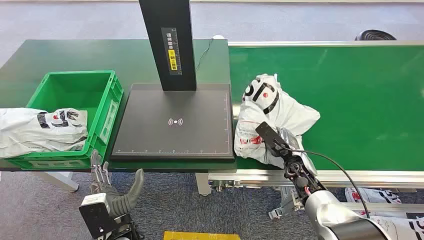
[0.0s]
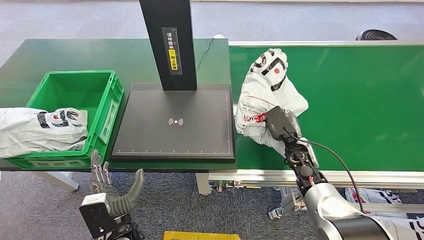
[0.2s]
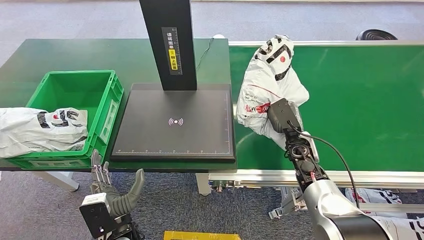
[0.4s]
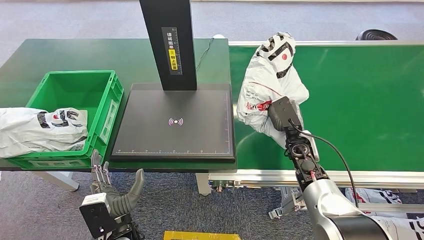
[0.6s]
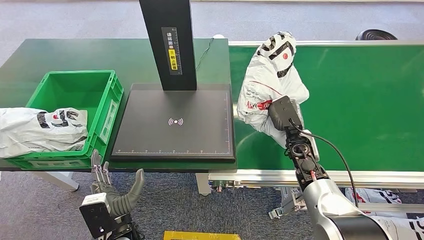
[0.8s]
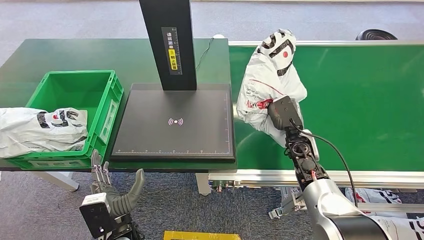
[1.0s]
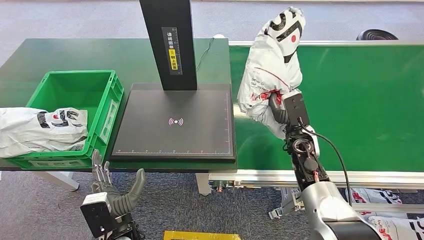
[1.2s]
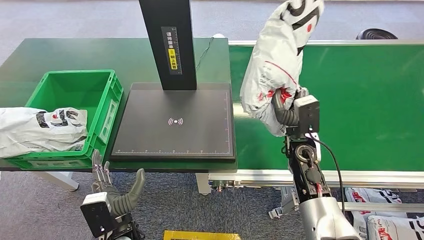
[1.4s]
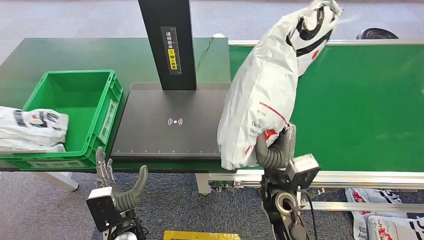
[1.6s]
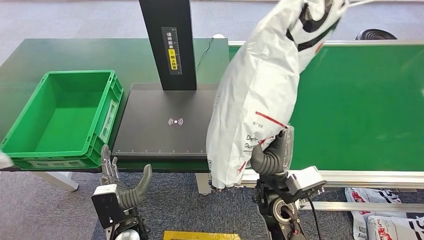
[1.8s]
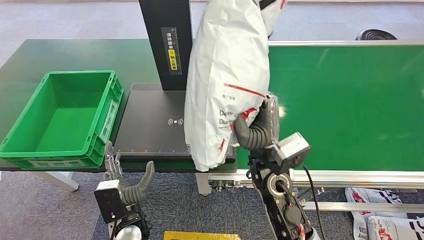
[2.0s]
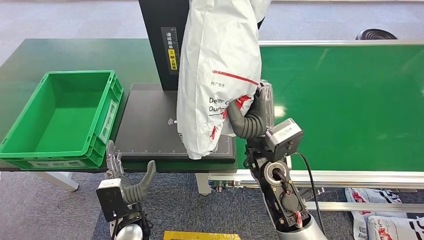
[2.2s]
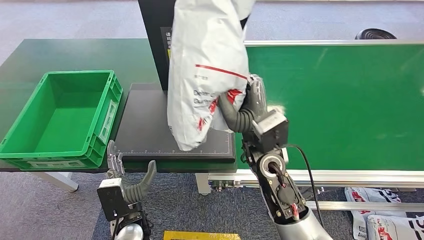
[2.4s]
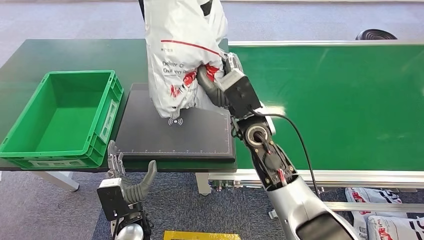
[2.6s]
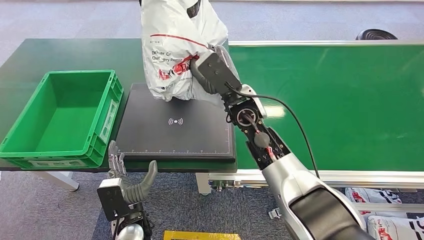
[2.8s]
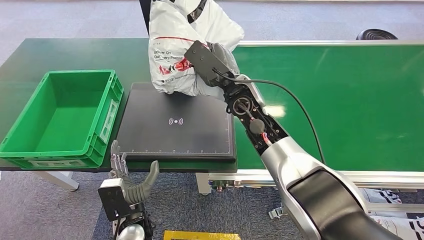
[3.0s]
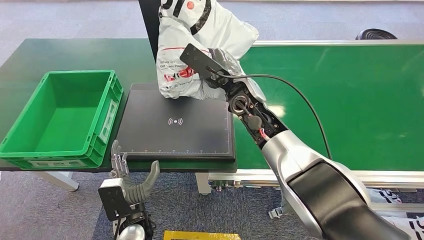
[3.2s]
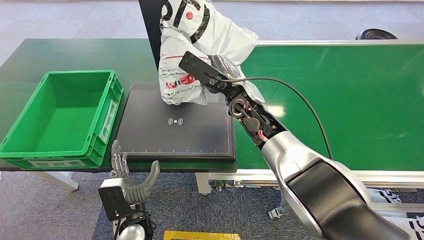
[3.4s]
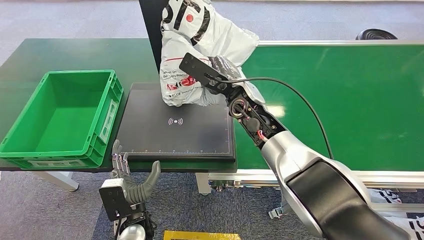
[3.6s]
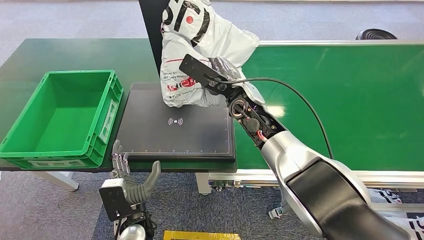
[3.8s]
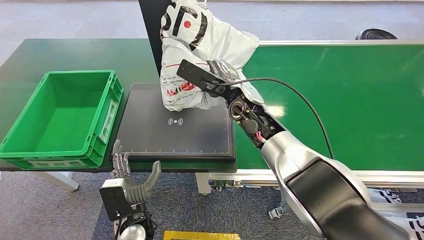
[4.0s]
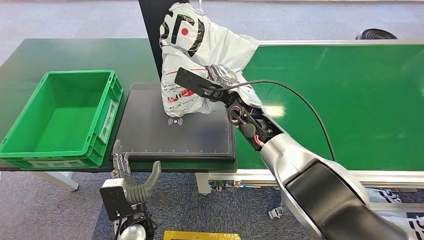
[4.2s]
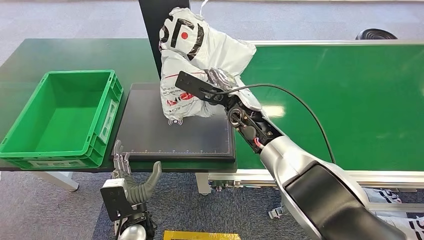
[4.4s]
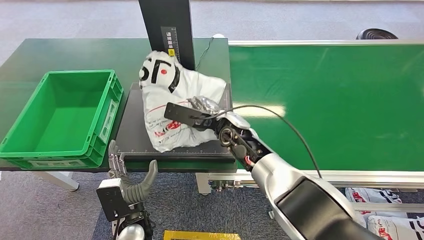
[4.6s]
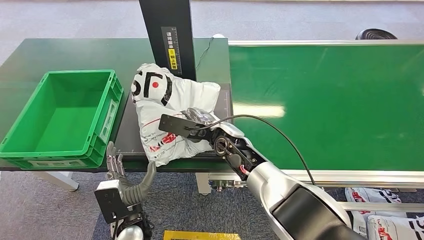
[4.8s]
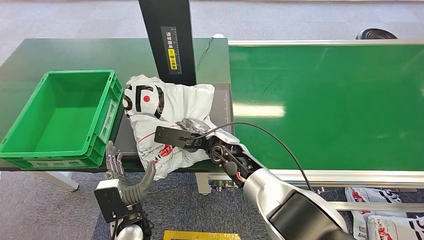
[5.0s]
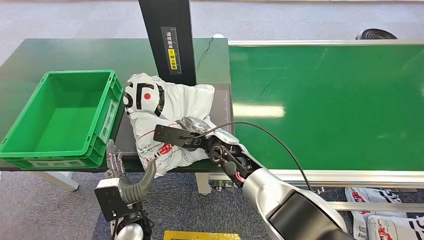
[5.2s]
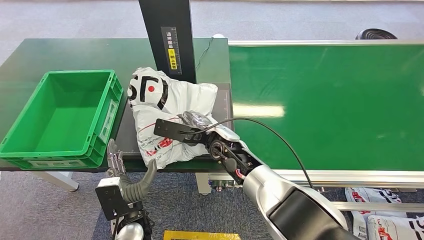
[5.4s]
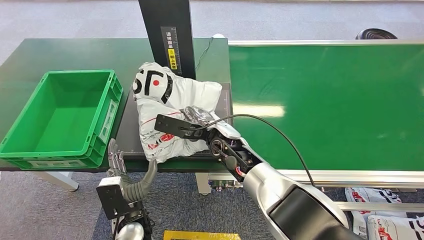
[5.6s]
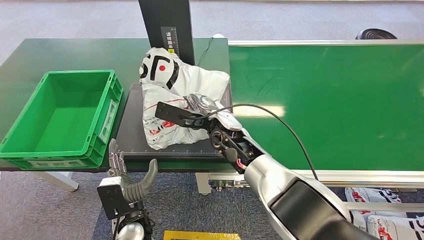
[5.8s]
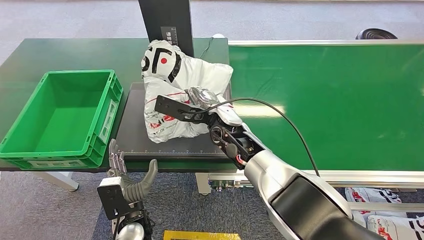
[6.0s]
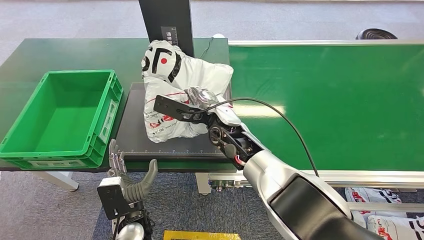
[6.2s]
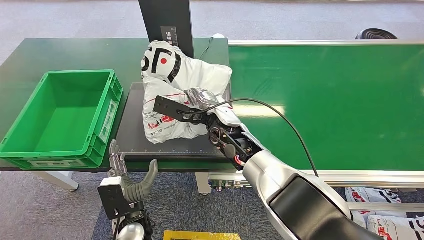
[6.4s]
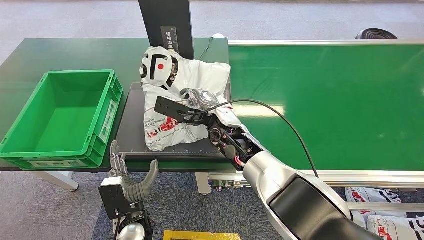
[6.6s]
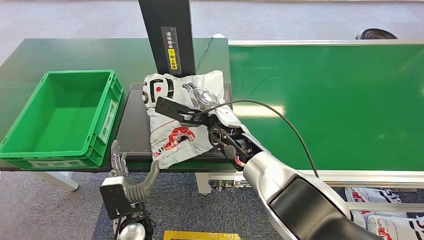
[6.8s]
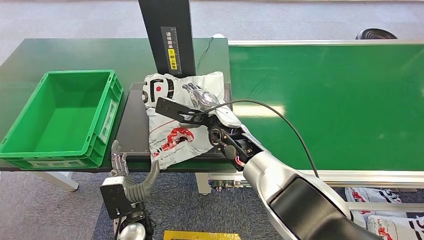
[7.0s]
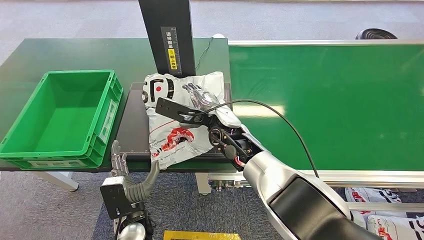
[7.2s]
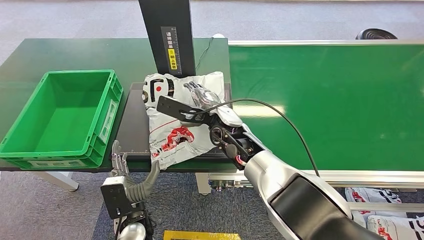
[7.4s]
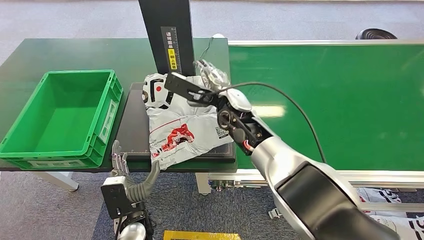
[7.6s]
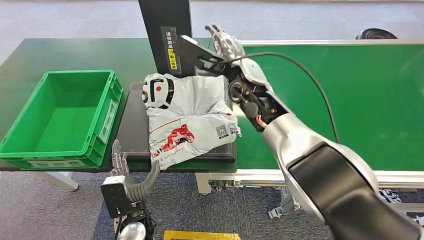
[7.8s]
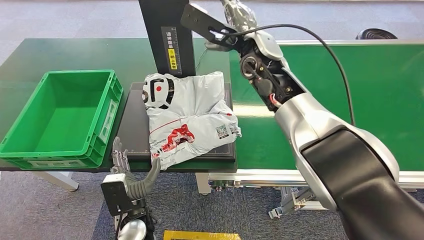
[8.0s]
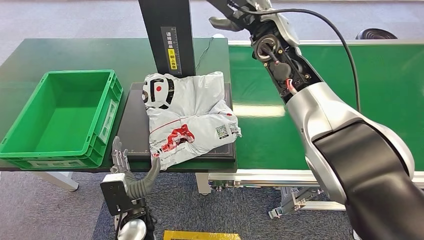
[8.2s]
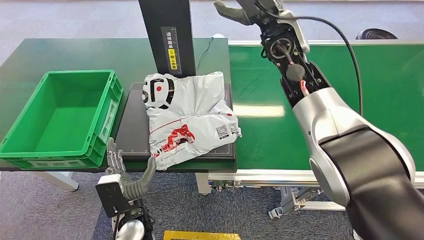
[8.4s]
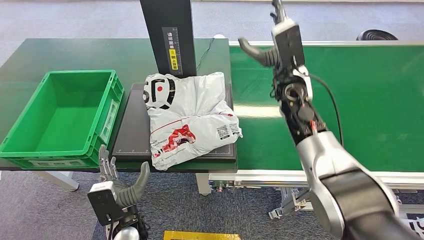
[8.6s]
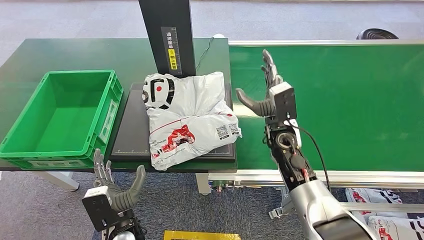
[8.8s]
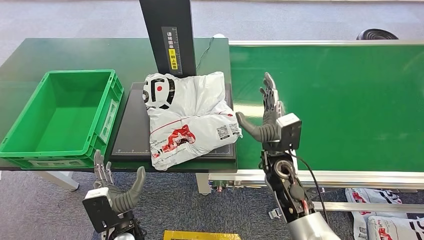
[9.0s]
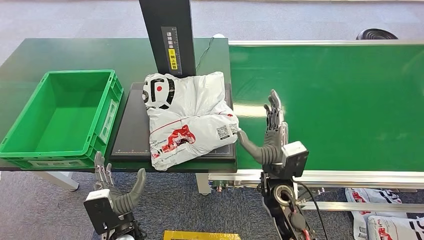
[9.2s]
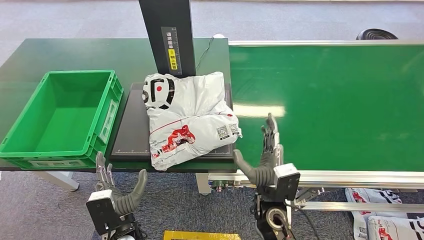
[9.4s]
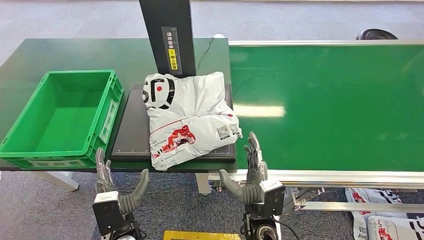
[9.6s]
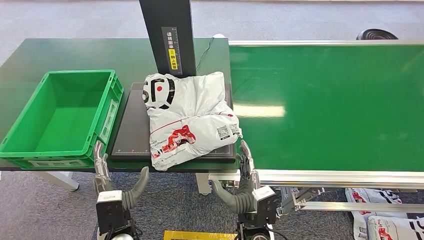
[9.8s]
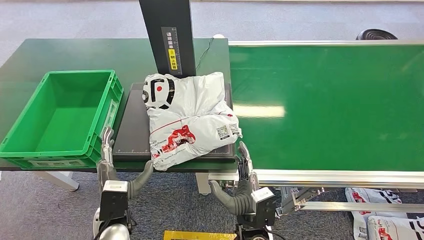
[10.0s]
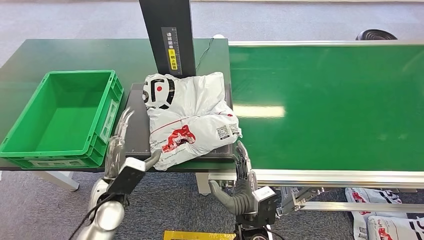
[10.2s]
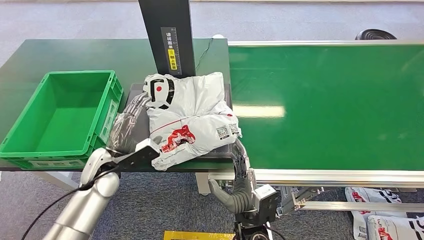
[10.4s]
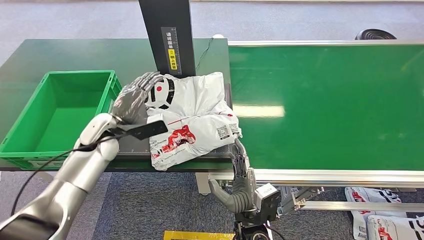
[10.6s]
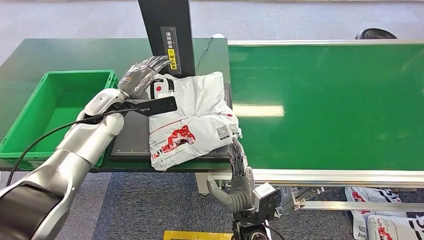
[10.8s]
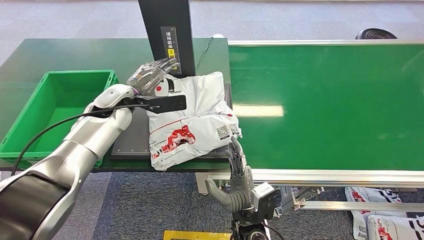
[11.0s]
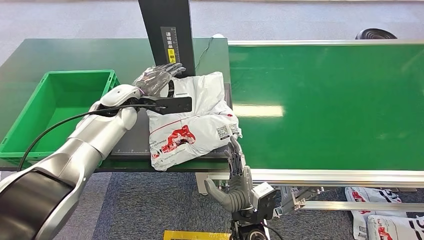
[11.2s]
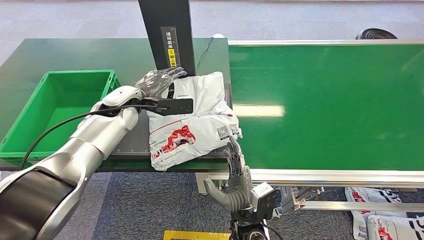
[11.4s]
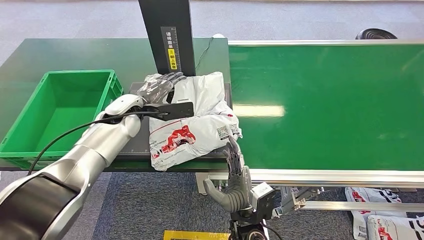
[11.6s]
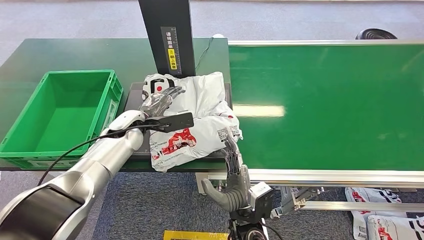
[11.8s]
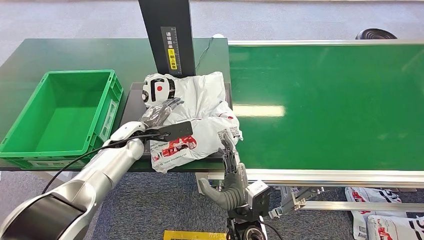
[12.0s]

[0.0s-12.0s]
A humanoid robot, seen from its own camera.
Step, 0.0s to 1.2s: Pick up the package from the conveyor belt.
Step, 1.4s to 8.6s: Place the package onto the inbound machine.
6.0s to 7.6s: The hands move only a little.
7.6s to 9.0s: The right hand shifts about 20 cm downward, to the right and backward.
9.0s to 10.4s: The left hand is displaced forward, to the left and upward by approximately 20 cm. The right hand goes about 20 cm backward, to the left and downward.
10.4s to 12.0s: The left hand goes approximately 10 cm forward, and goes upward and returns, roughly 15 cm each way.

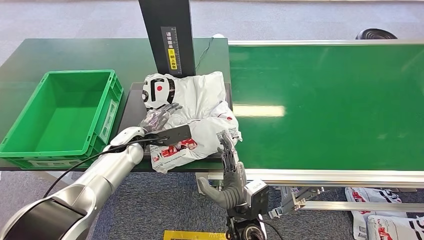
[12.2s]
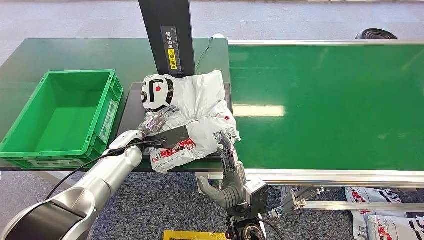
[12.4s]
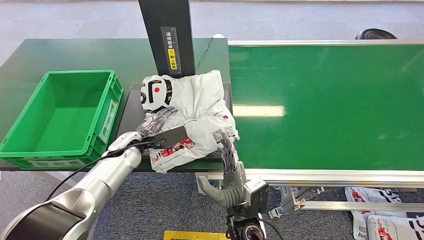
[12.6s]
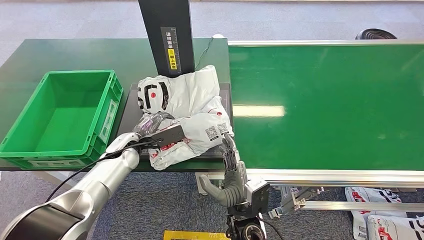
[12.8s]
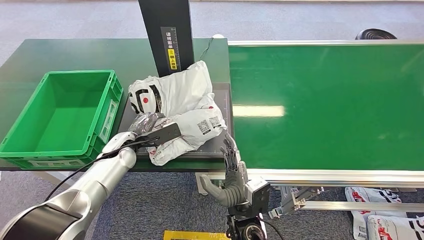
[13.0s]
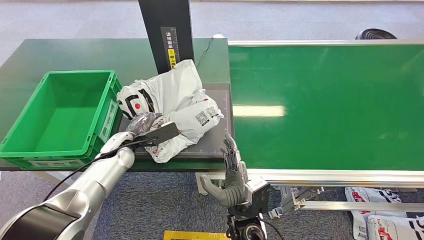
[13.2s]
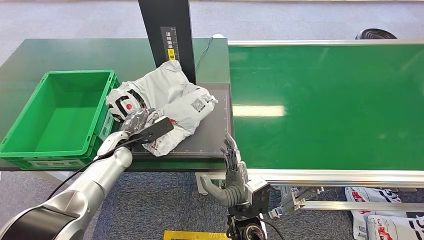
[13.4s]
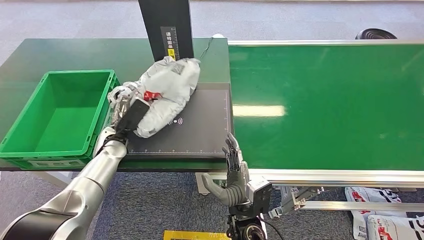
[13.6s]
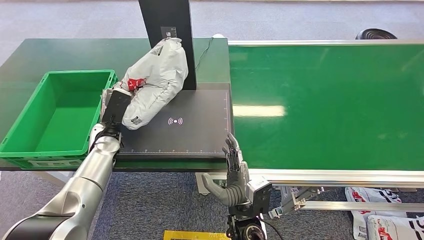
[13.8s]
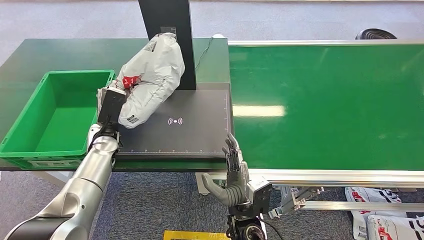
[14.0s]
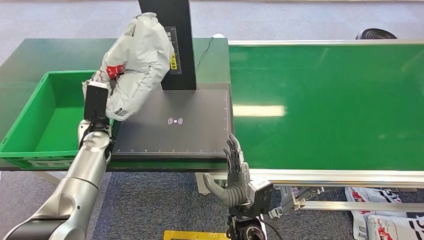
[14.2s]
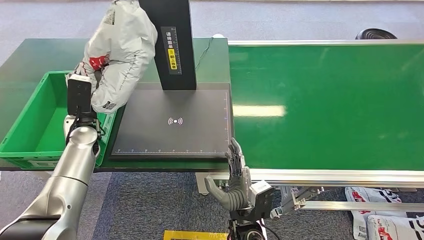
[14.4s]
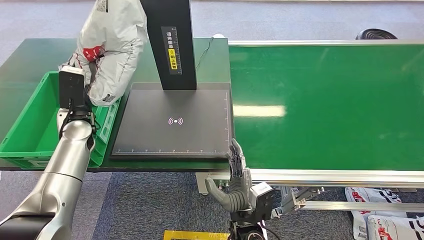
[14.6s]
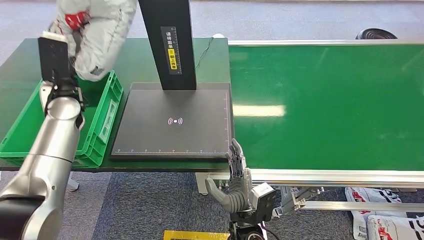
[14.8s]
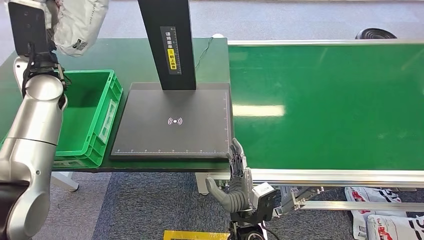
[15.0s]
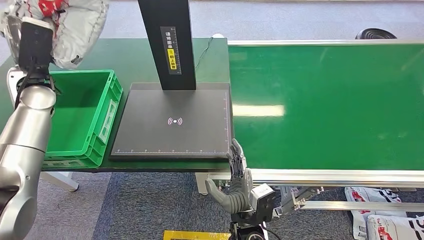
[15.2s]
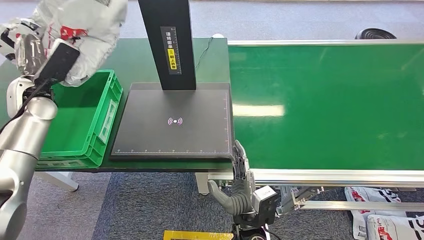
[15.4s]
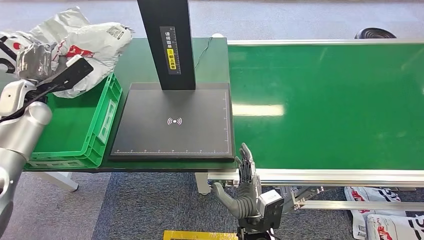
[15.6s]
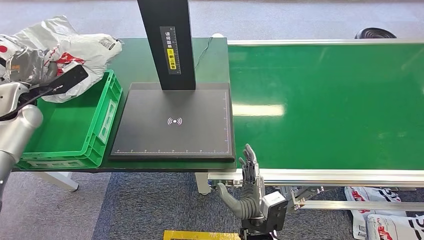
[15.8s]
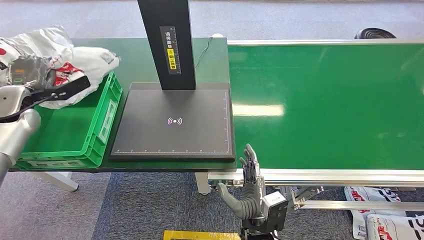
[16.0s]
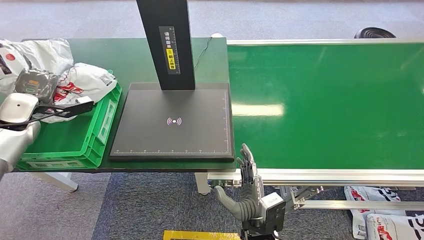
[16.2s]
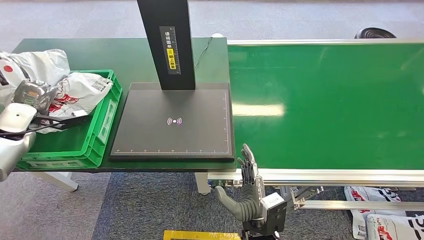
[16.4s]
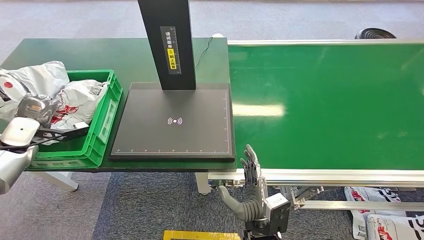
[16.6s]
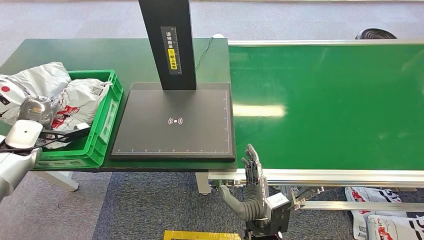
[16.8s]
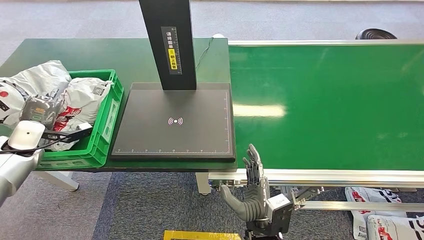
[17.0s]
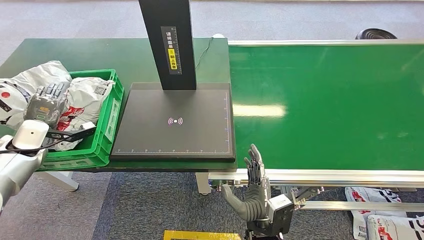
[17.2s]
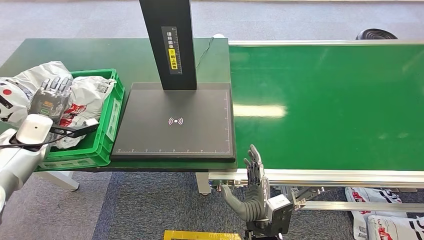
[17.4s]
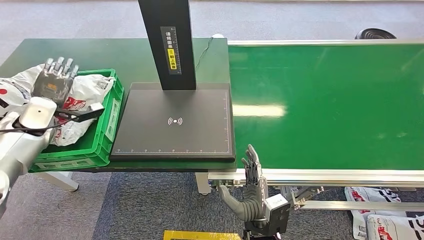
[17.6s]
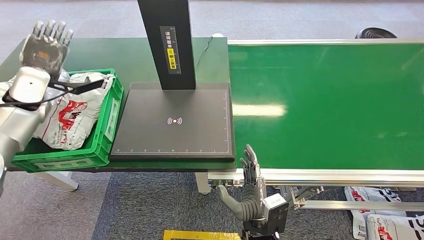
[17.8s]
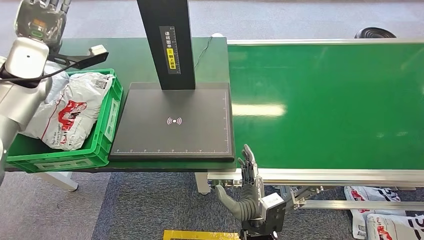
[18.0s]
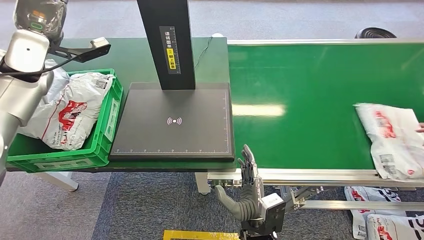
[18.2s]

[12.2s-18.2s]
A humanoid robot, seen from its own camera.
Step, 12.2s to 14.2s: Pick up the package from the inbound machine.
Step, 14.4s to 18.2s: Place the package into the parcel locker.
15.2s to 16.6s: The left hand travels to the left and downward by some 20 cm.
16.6s to 18.2s: The left hand moves upward, to the right and forward, about 25 cm.
